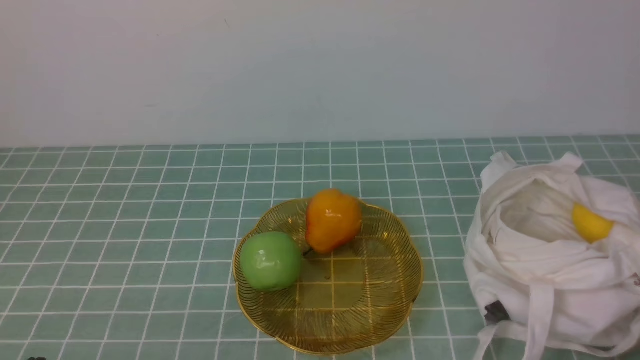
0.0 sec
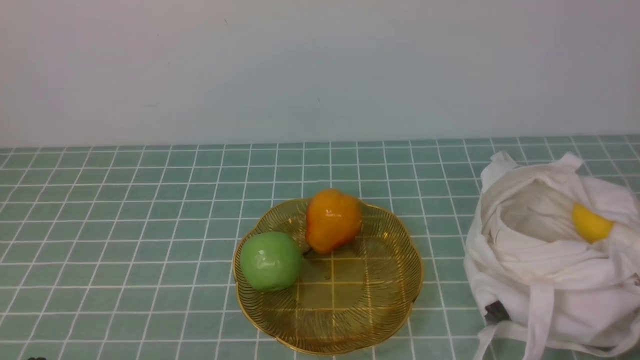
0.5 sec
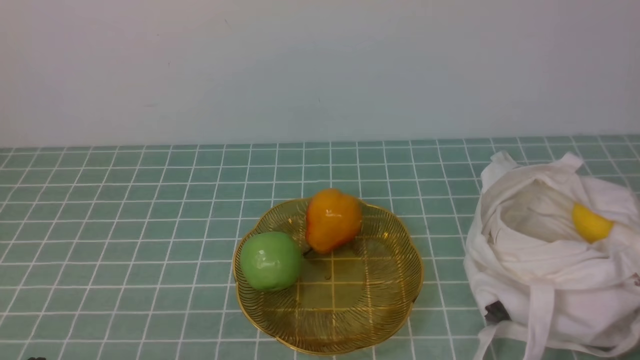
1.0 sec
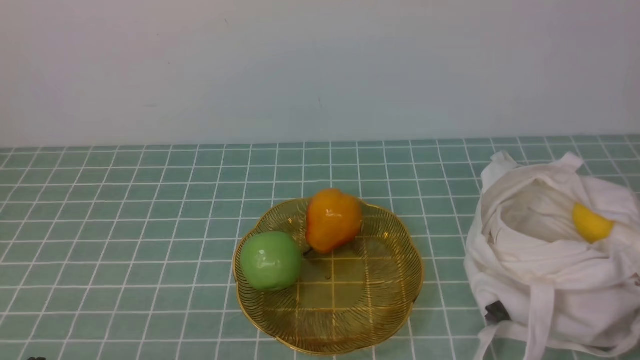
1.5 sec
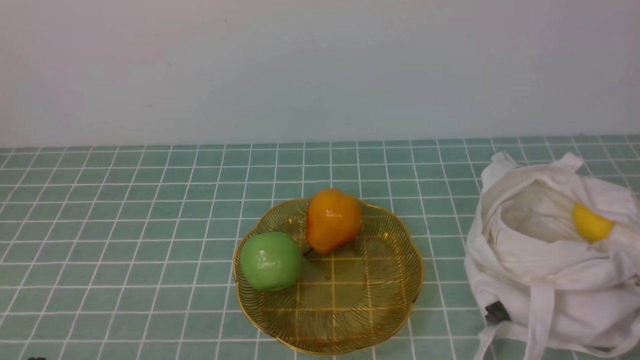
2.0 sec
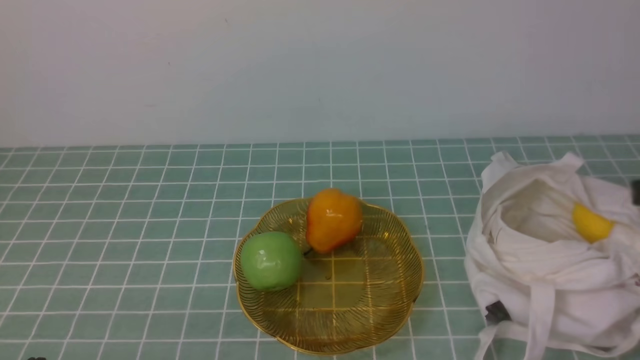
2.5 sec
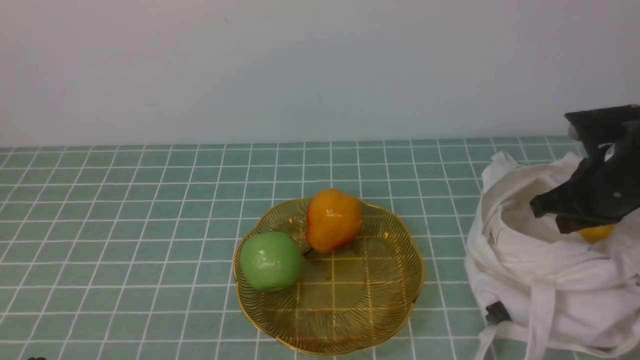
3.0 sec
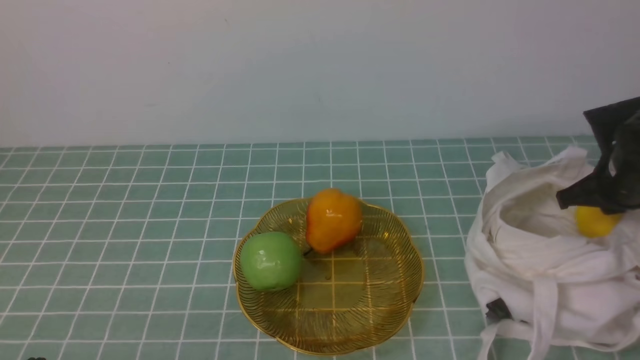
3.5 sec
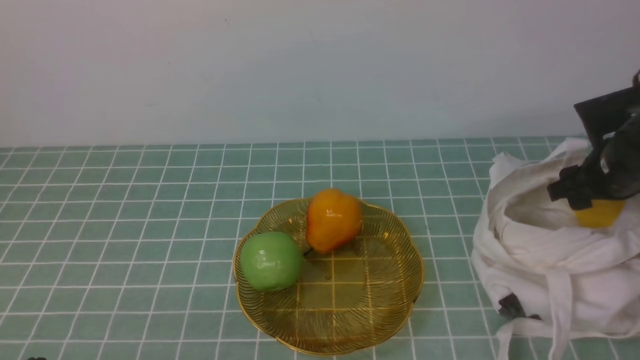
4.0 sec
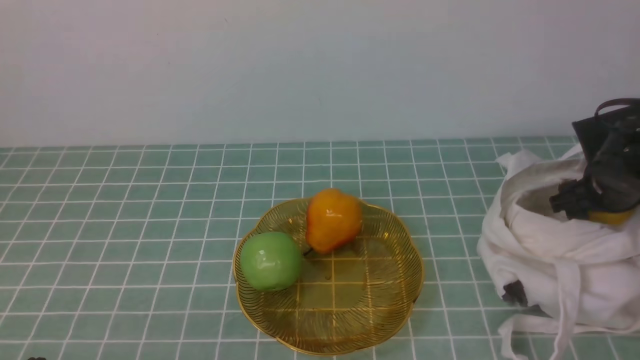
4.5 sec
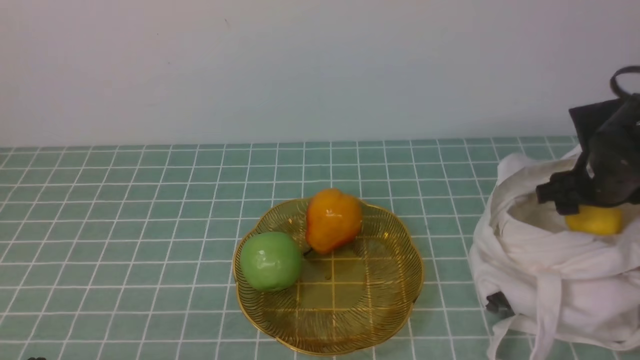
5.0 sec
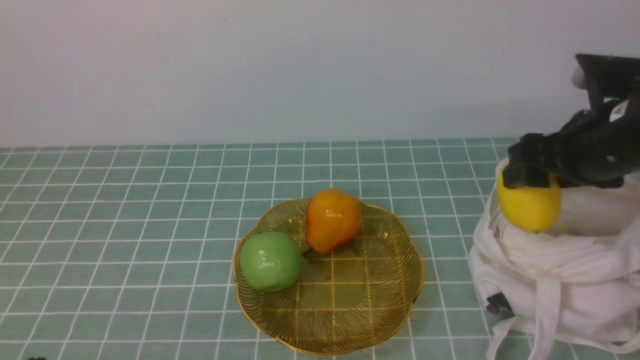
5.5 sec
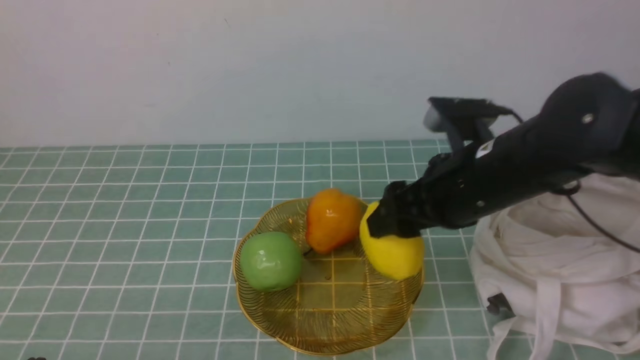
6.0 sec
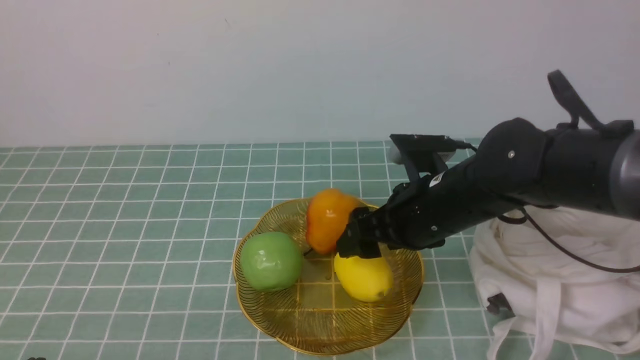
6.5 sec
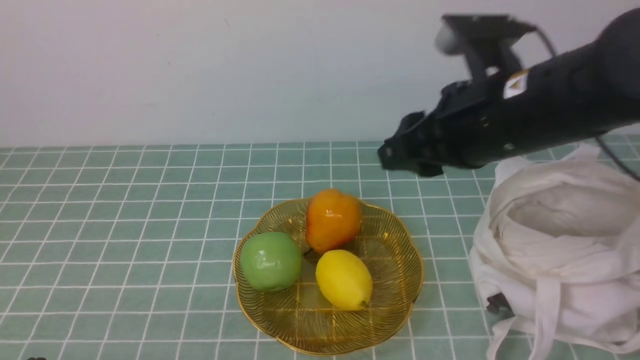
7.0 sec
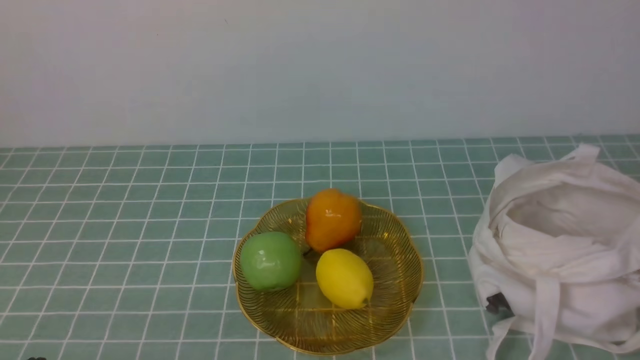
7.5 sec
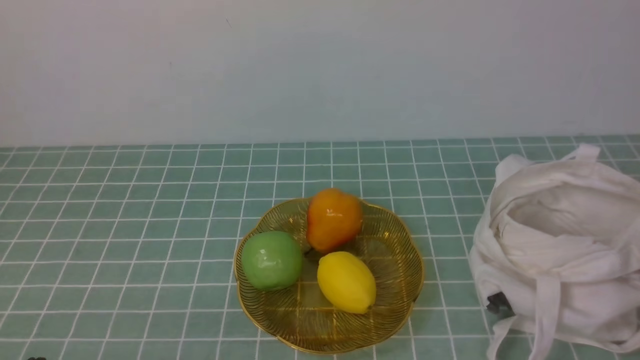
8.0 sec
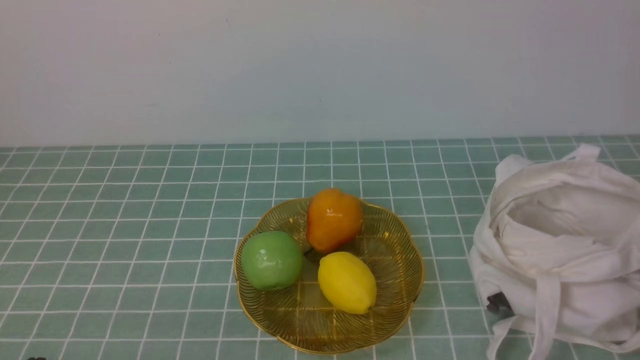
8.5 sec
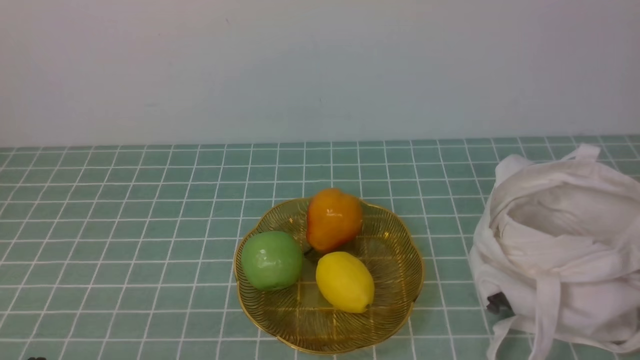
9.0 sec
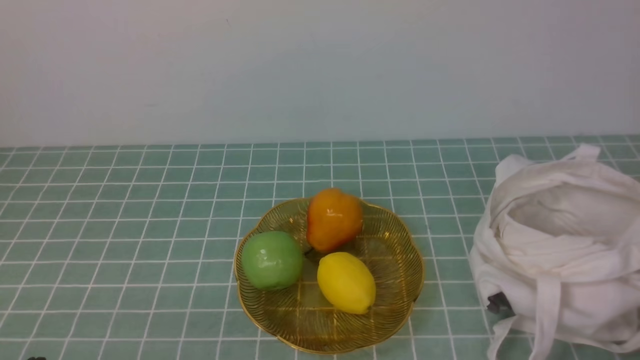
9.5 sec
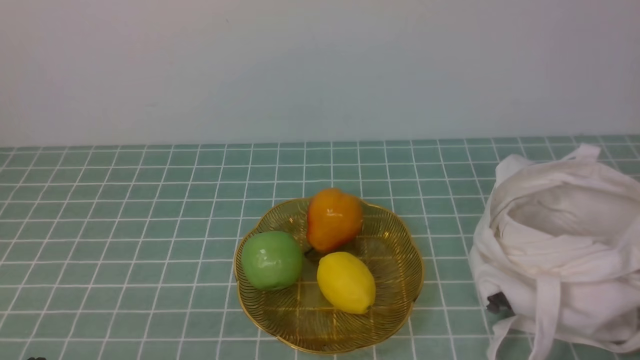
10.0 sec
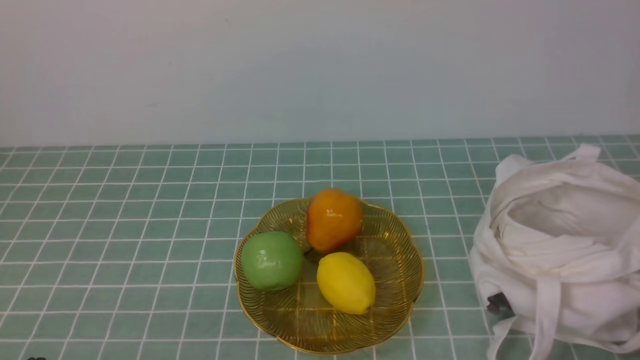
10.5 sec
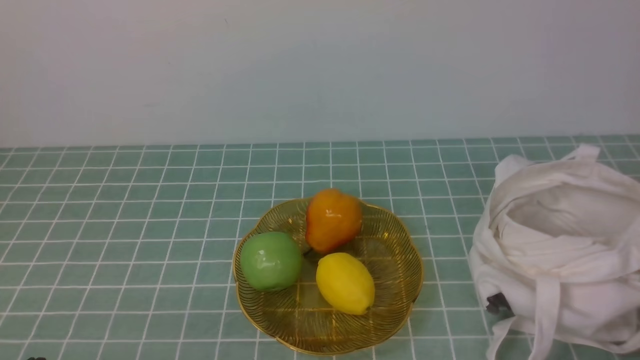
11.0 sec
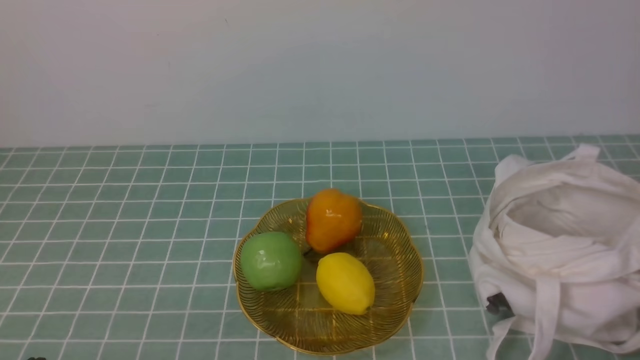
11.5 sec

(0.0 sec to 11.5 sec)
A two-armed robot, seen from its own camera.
Step, 0.0 sec - 5.0 sec: use the right arm to grab a lemon from the bag.
Step, 5.5 sec - 6.5 sec: use the right arm to put the lemon into the empty plate on the left.
2.0 sec - 4.0 sec: The right gripper travels forward by some 30 cm, and opens.
4.0 sec - 6.0 sec: The right gripper moves to the left, some 20 cm.
6.0 sec - 7.5 sec: The right gripper moves backward, upward and to the right, roughly 30 cm, and closes its fingers.

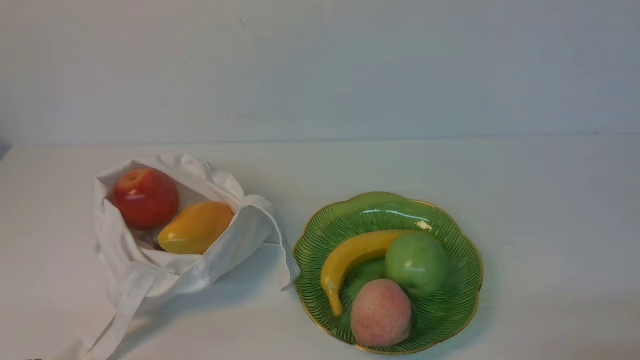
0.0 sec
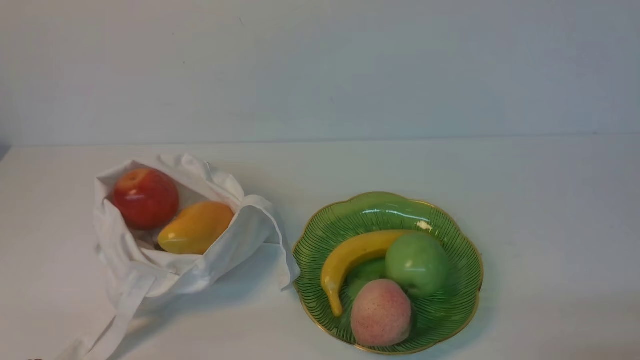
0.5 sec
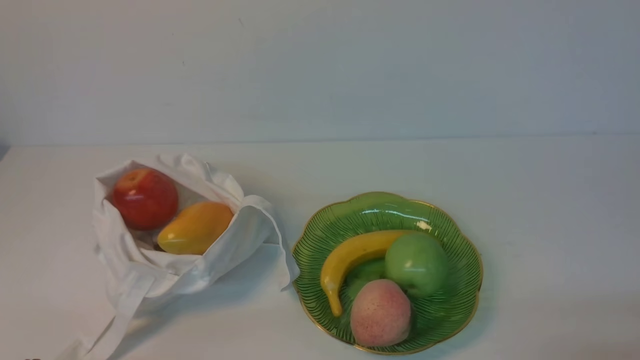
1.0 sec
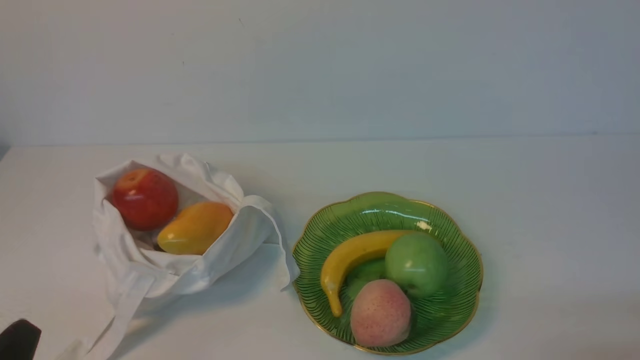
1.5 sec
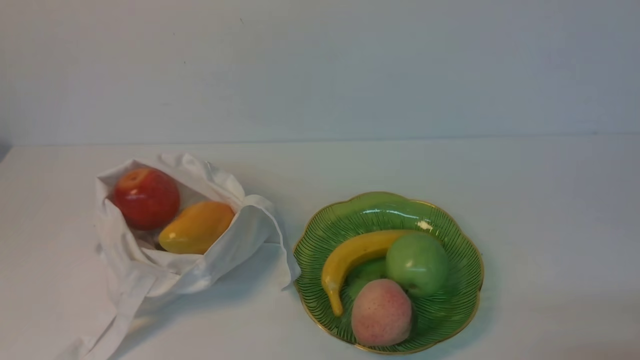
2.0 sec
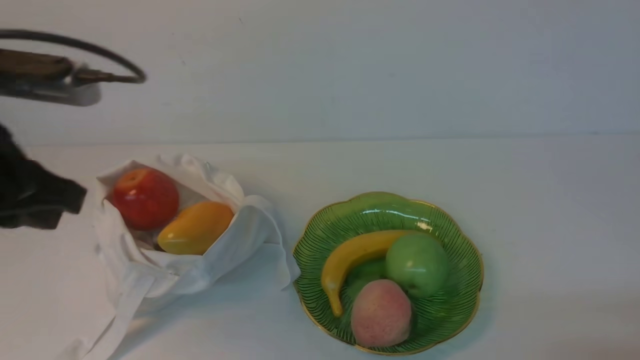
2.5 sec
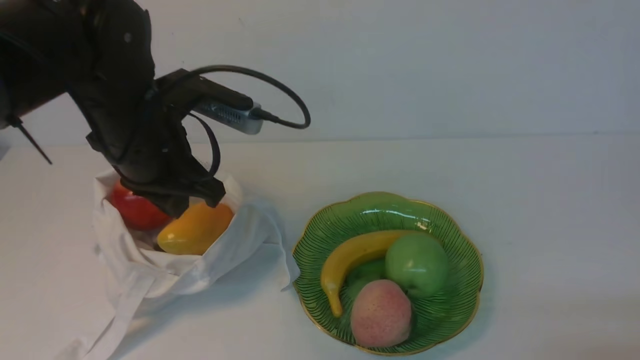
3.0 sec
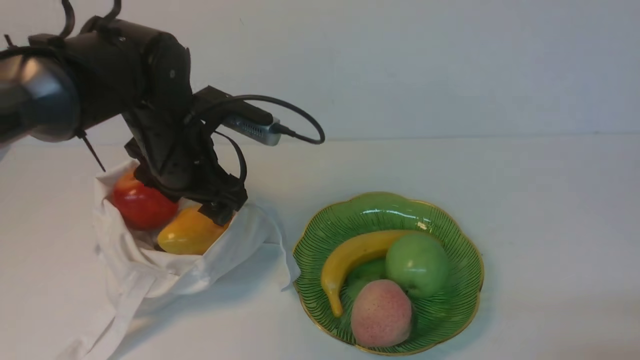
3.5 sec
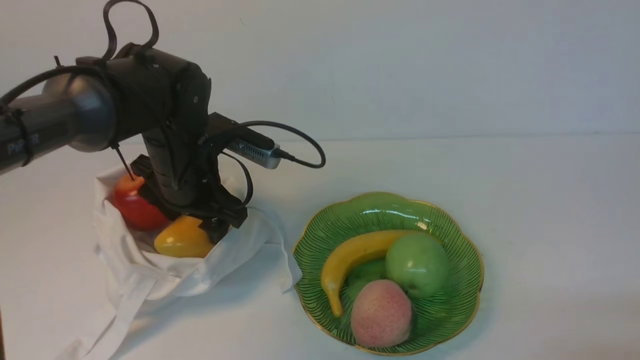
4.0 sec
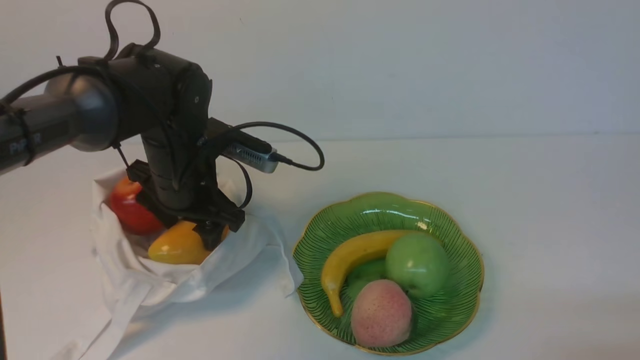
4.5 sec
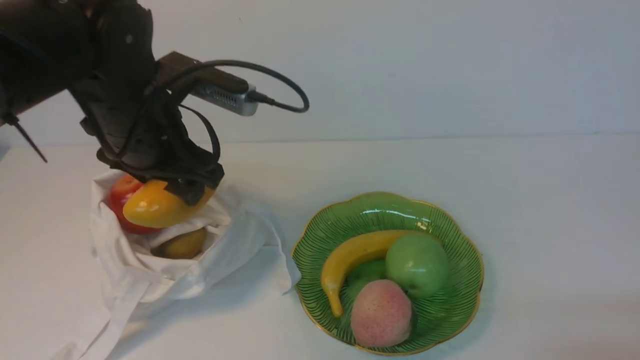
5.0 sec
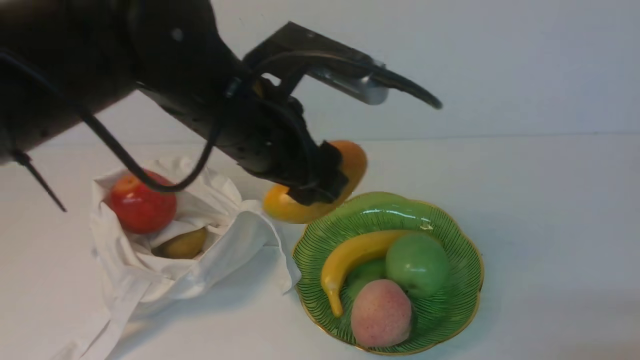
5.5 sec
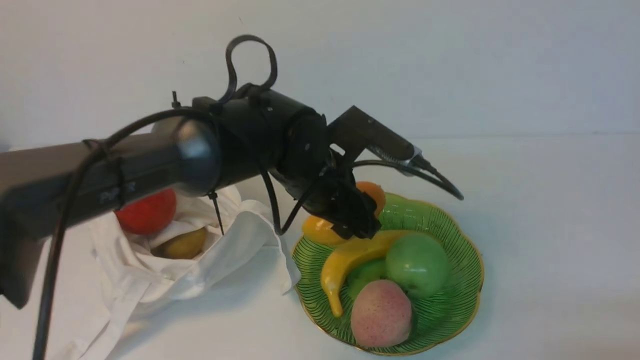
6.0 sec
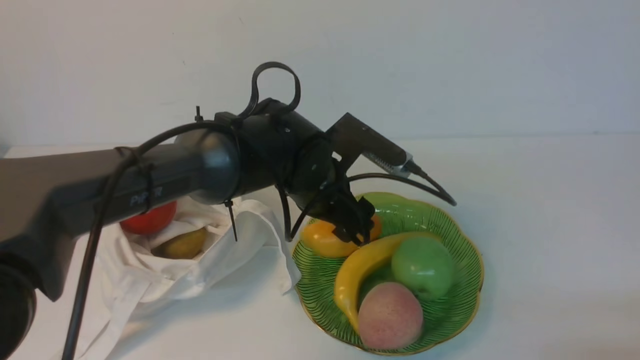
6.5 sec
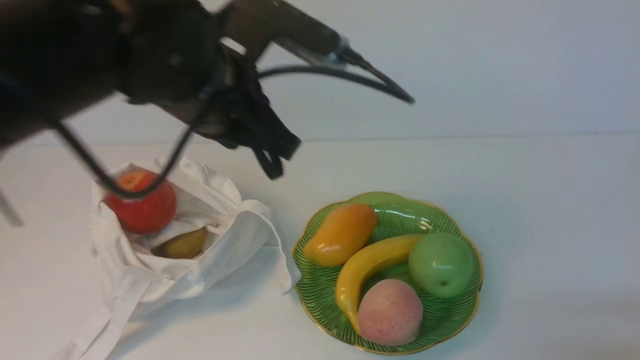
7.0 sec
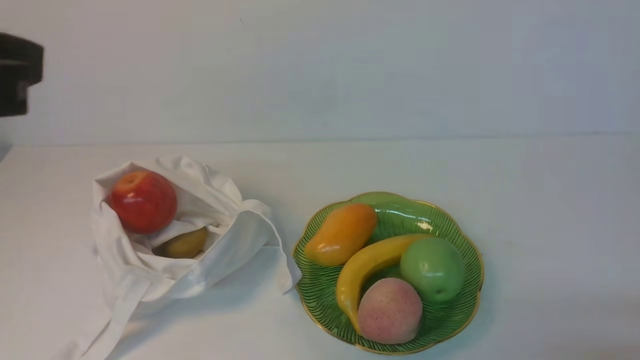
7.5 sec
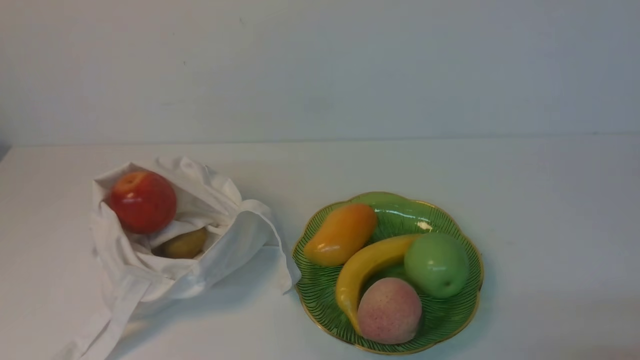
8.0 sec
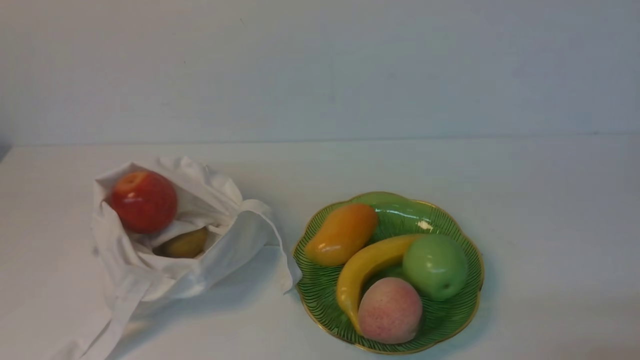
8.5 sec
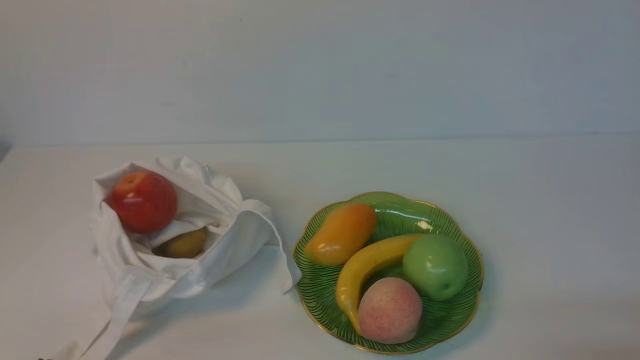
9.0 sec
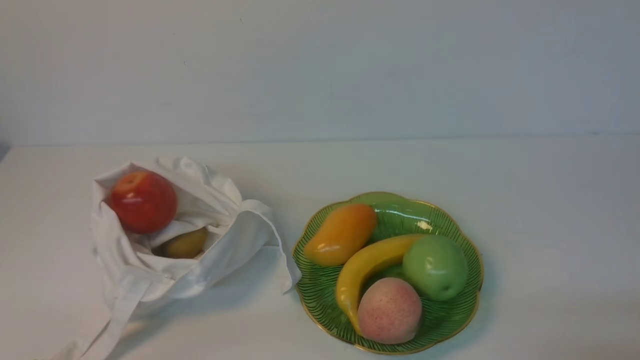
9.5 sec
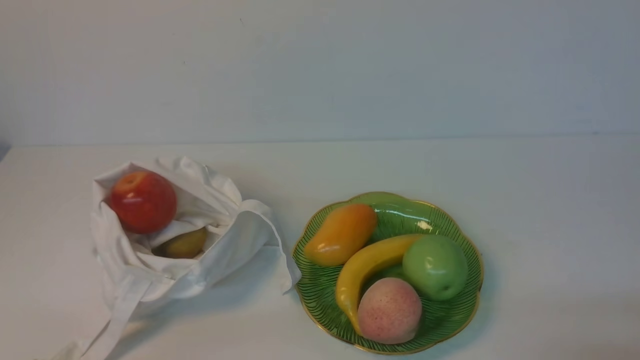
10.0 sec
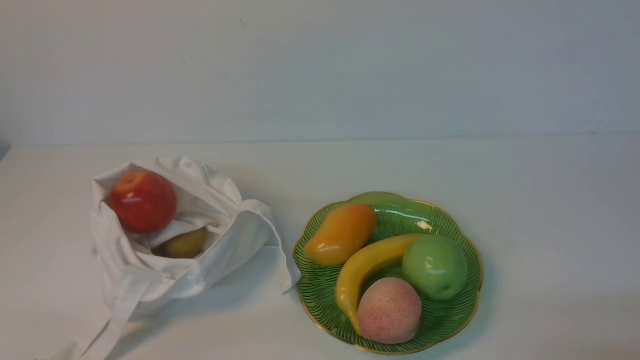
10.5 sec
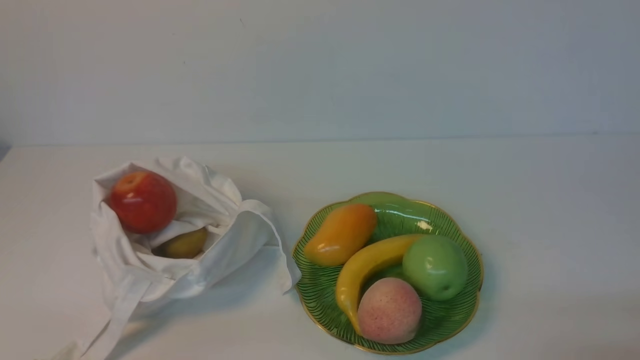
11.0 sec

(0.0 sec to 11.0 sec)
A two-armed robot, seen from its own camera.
Step, 0.0 sec - 4.5 sec: use the left arm to grab a mango from the bag.
Step, 5.0 sec - 6.5 sec: use the left arm to put the mango into the empty plate on the right.
2.0 sec - 3.5 sec: The left gripper moves forward, roughly 30 cm, and opens up.
3.5 sec - 5.5 sec: The left gripper heads upward, backward and to the right, covering about 10 cm.
5.5 sec - 7.5 sec: The left gripper goes some 20 cm backward, upward and to the left, and closes.
7.5 sec - 9.0 sec: The left gripper goes about 25 cm downward and backward.
